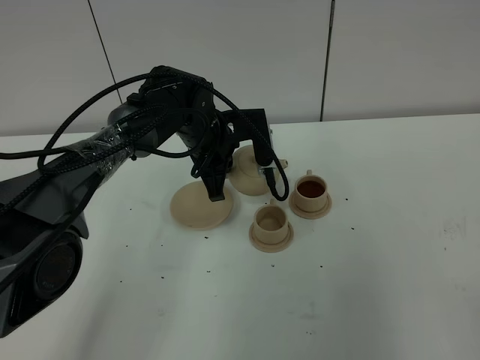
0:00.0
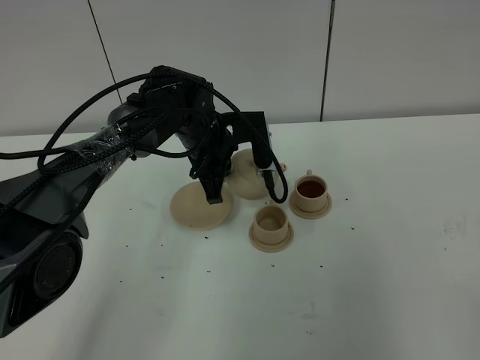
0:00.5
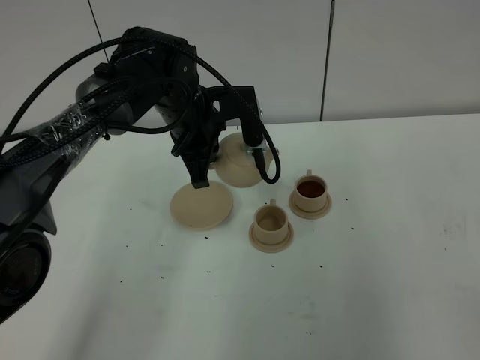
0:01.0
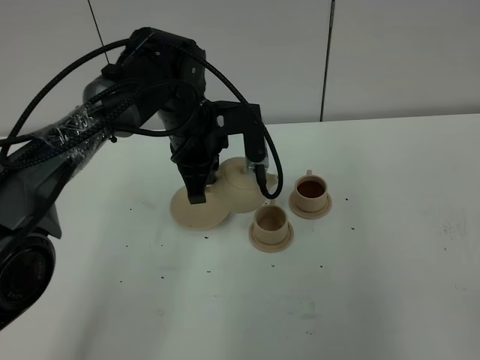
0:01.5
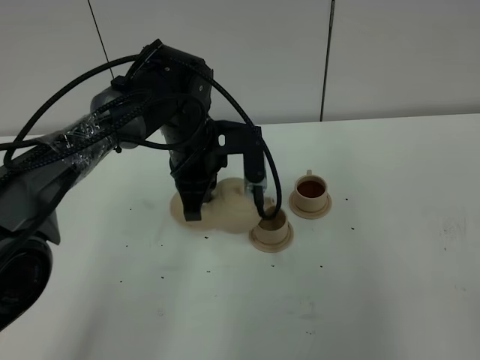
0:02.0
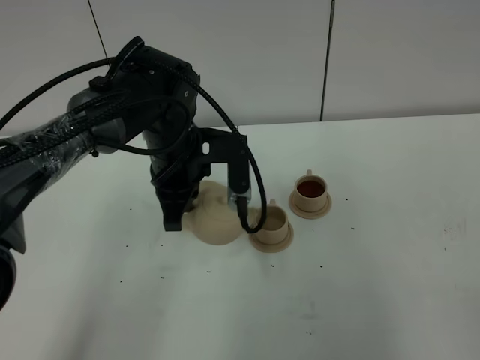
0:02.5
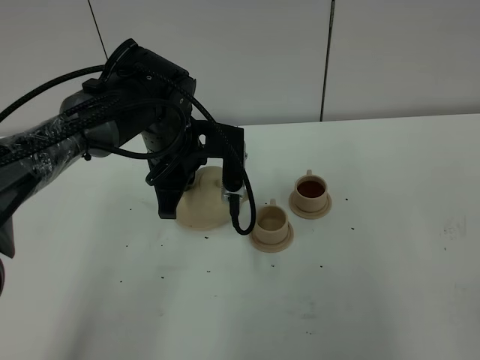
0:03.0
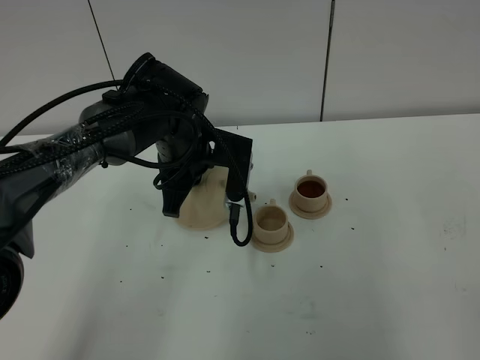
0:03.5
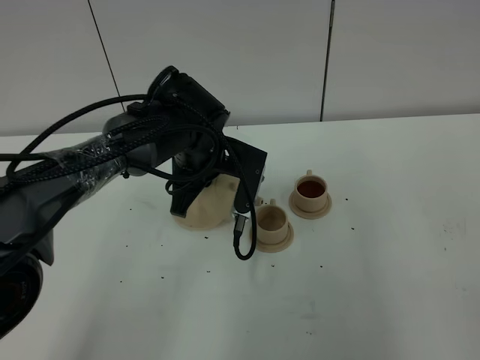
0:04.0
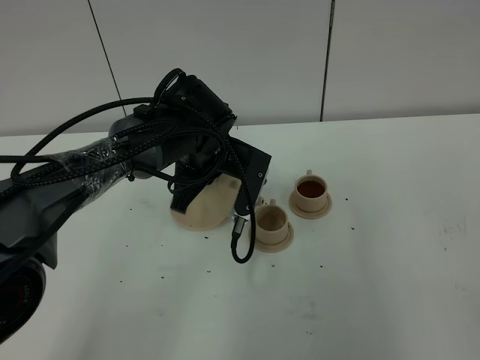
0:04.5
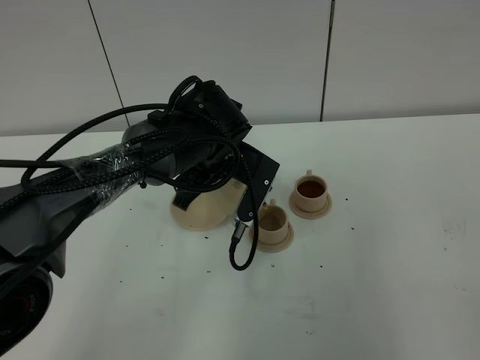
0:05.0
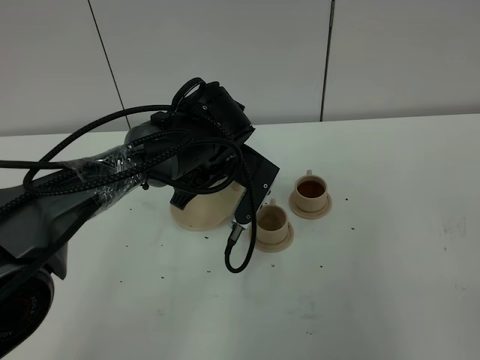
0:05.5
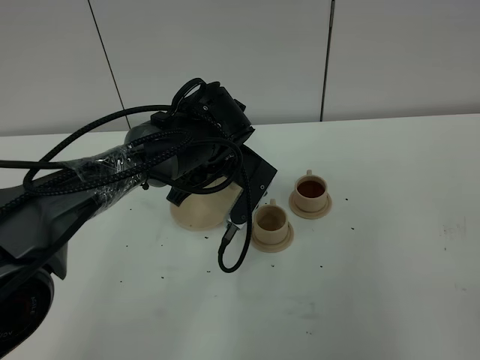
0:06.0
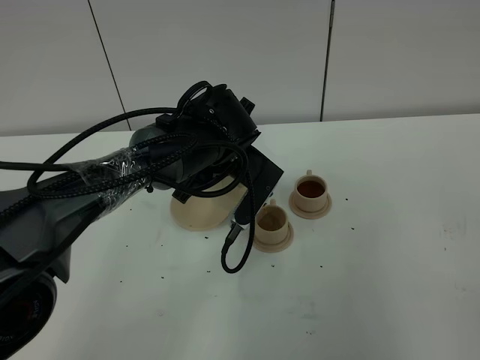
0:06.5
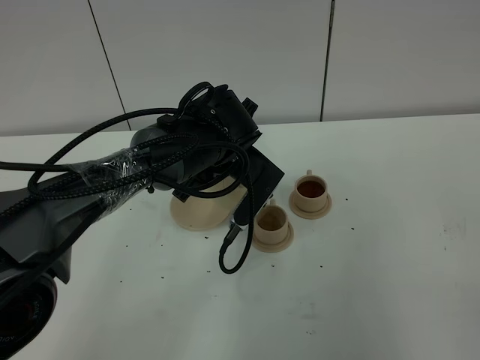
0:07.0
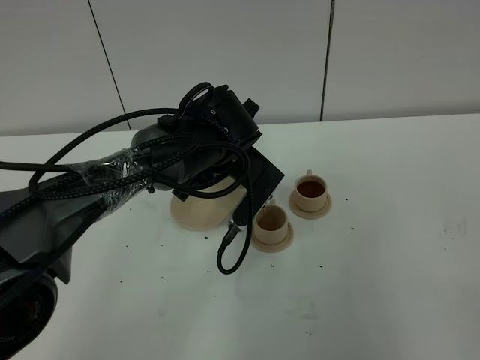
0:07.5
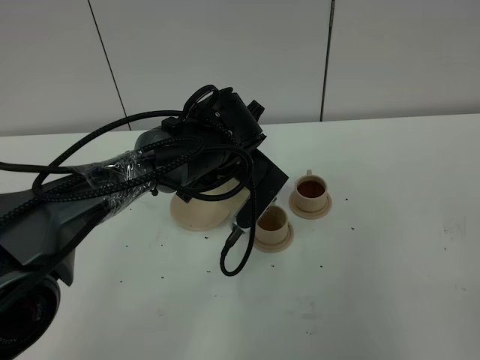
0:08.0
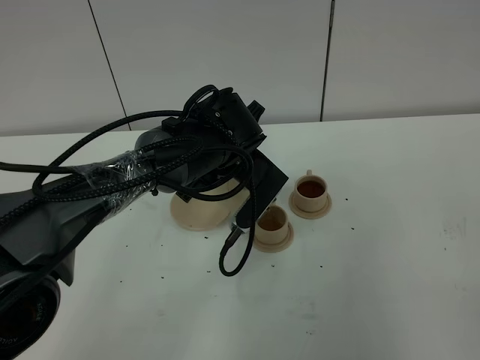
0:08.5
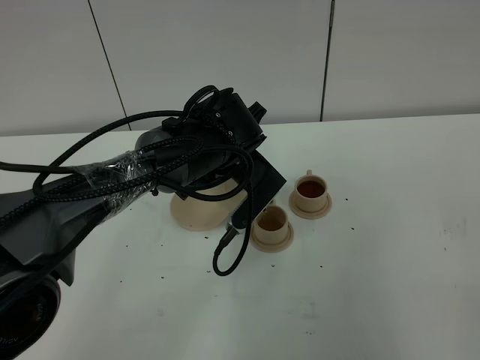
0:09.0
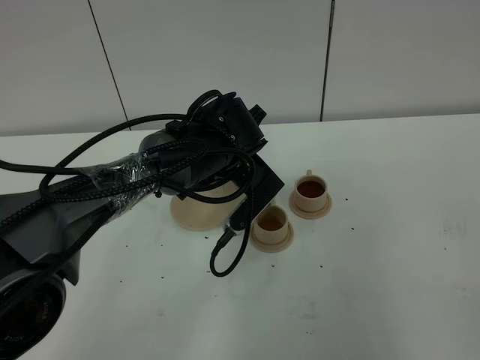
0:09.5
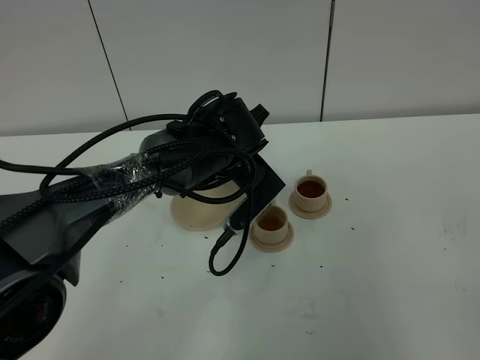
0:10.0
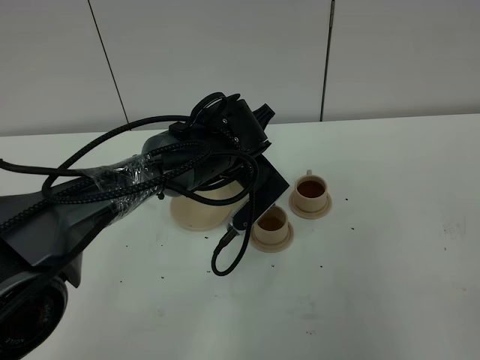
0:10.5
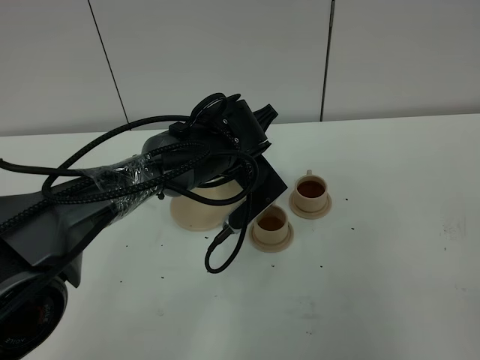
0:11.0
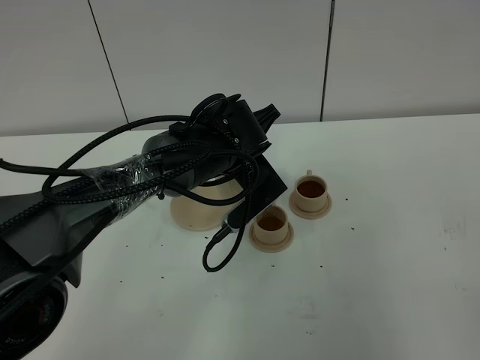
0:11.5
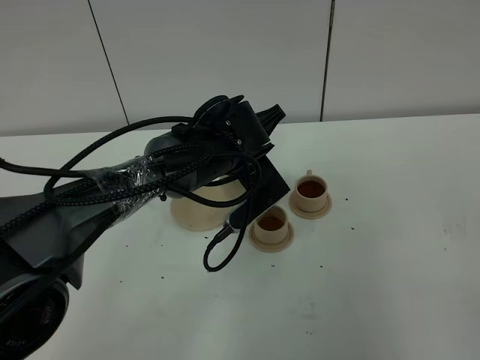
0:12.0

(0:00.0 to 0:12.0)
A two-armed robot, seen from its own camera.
Task of the whole recording: grasp the brown teapot and pour the tea into the two brown teacups one by one, put the brown teapot back in its original place.
0:00.0 - 0:02.0: The left gripper heads backward, covering roughly 5 cm.
0:04.0 - 0:06.0: The grippers make only small movements.
0:06.0 - 0:10.0: There are only small adjustments of the grippers.
0:10.0 - 0:12.0: The grippers move only a little.

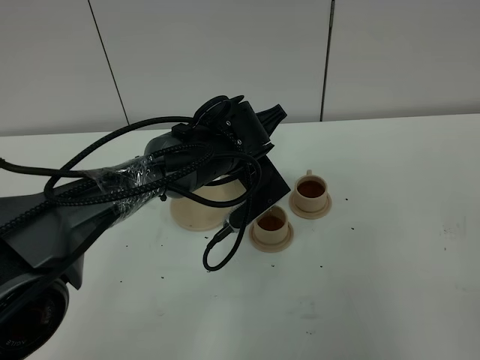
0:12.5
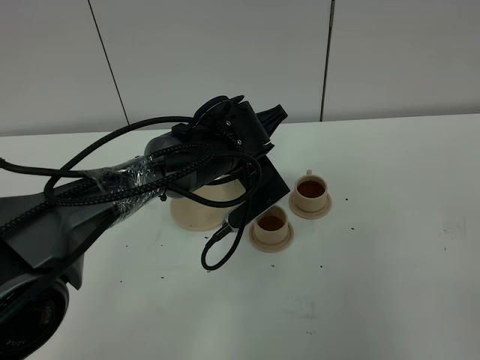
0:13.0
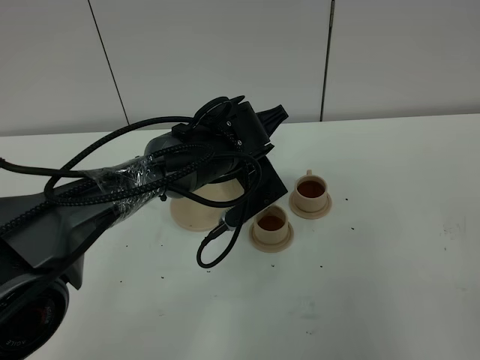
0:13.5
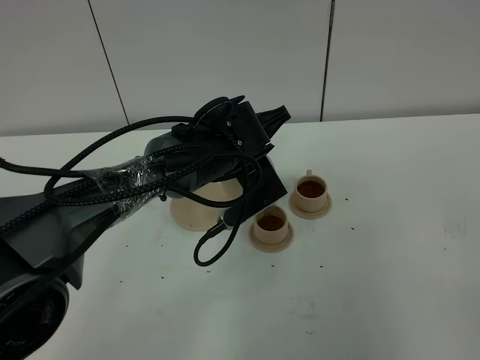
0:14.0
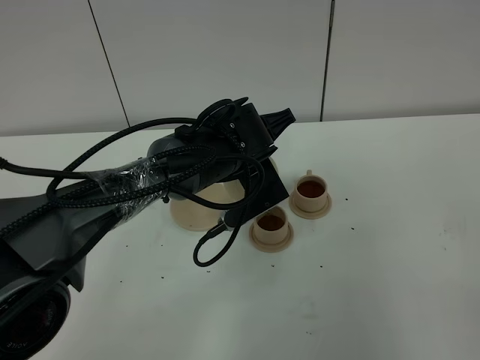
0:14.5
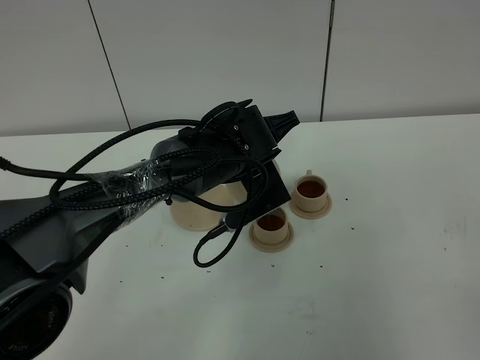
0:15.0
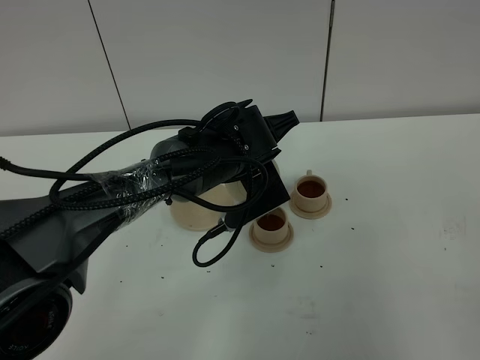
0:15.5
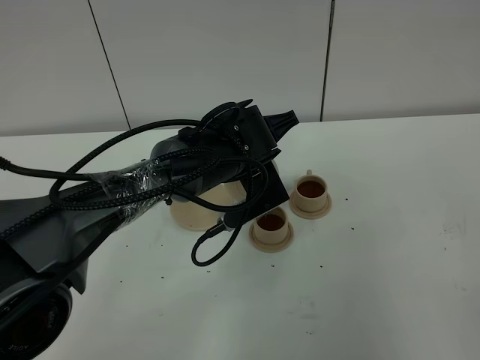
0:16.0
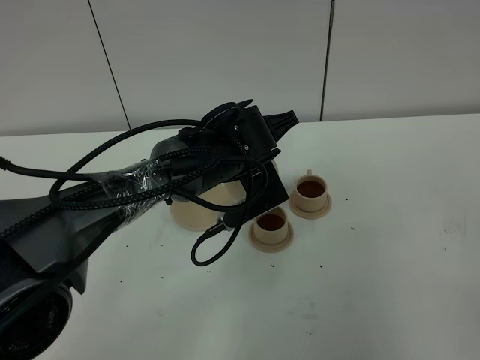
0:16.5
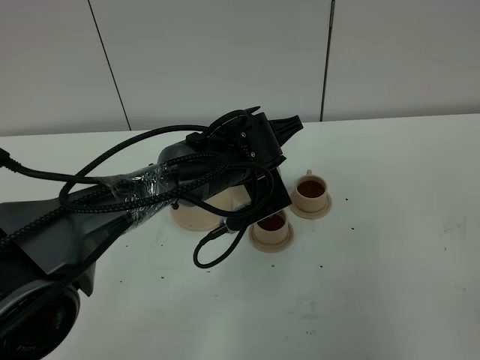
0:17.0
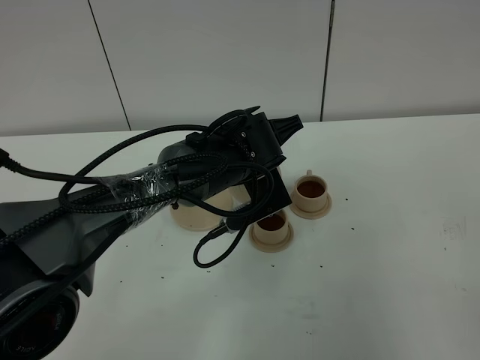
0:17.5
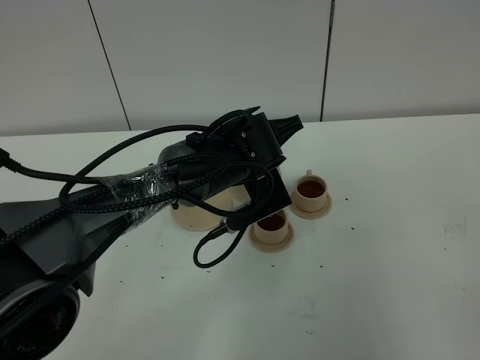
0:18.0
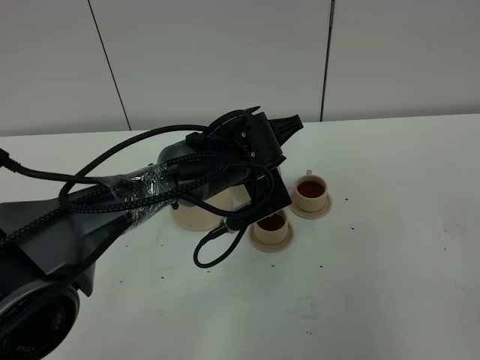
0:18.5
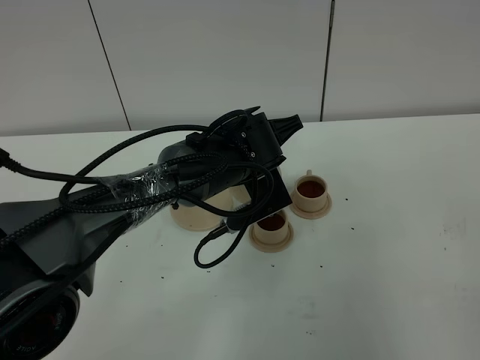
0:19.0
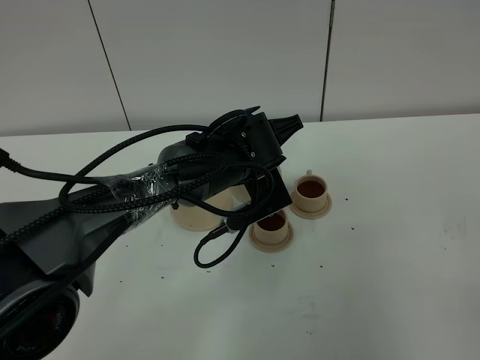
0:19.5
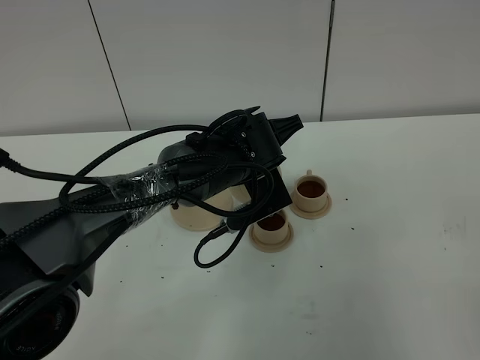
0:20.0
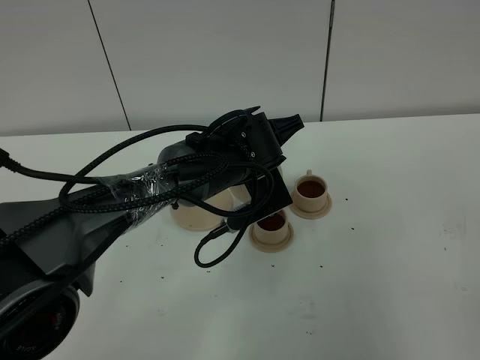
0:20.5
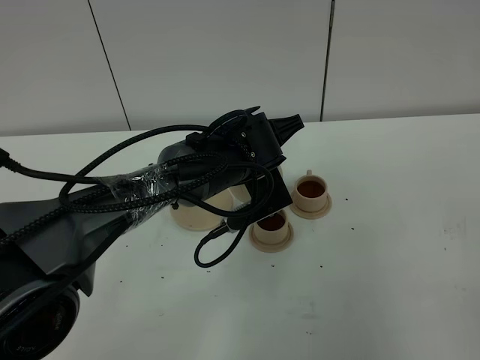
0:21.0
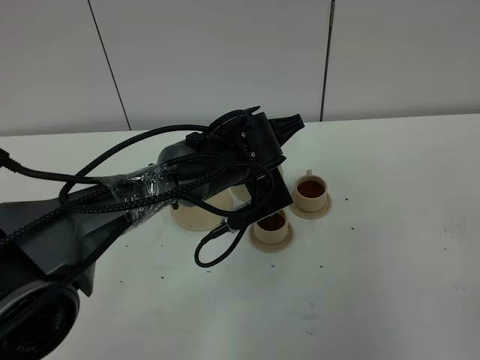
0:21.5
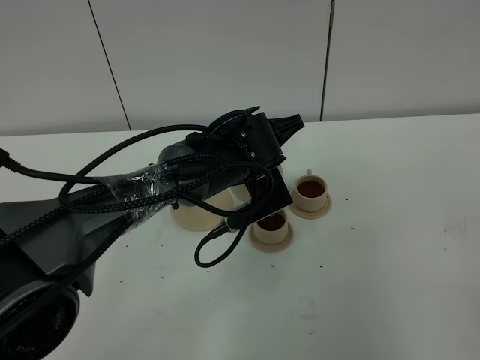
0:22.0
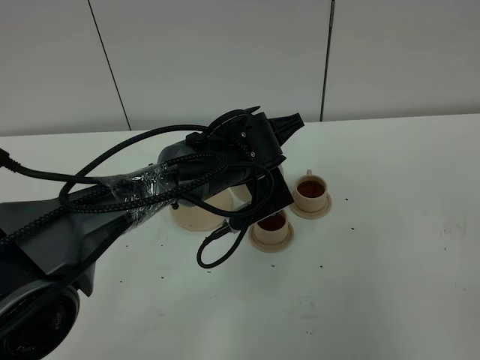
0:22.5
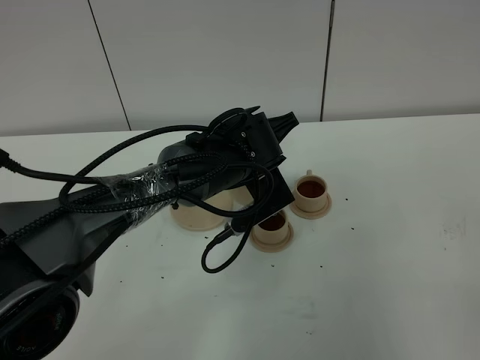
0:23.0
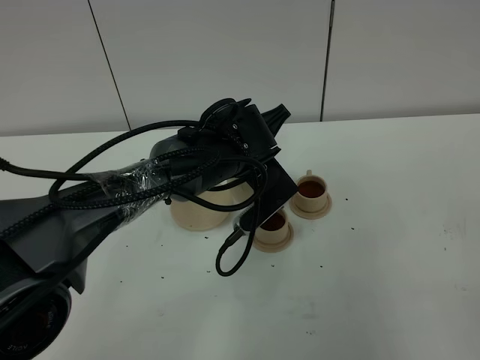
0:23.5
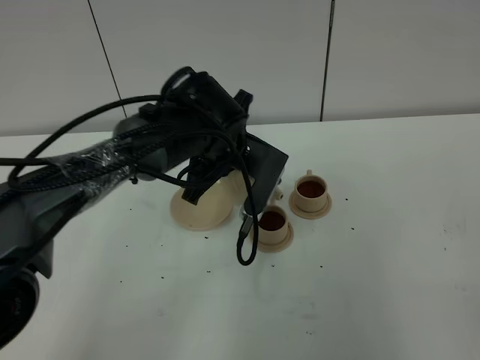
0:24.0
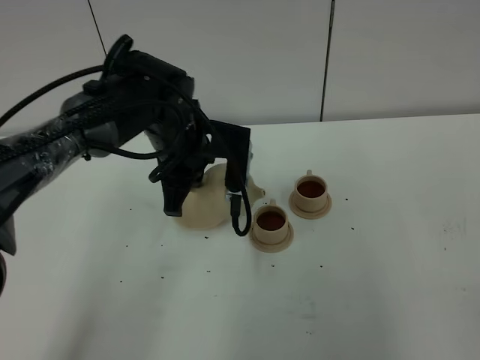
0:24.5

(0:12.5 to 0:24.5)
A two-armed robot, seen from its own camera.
Task of the whole recording: grasp the brown teapot and pour the tea into the two brown teacups one by one, put the brown teapot back in its original place.
Step, 0:12.5 - 0:23.5: Pour tea into the teacup with the left gripper.
0:12.5 - 0:14.5: There are only small adjustments of the grippers.
0:14.5 - 0:22.5: The two grippers keep their place.
0:22.5 - 0:24.5: The left gripper shifts some 10 cm to the left.

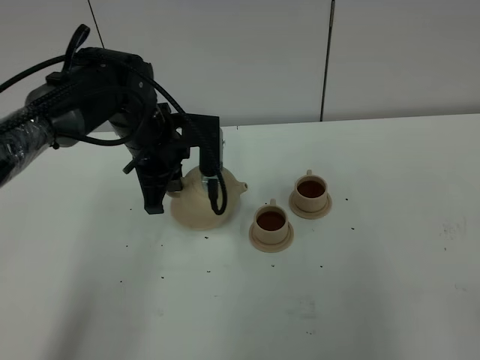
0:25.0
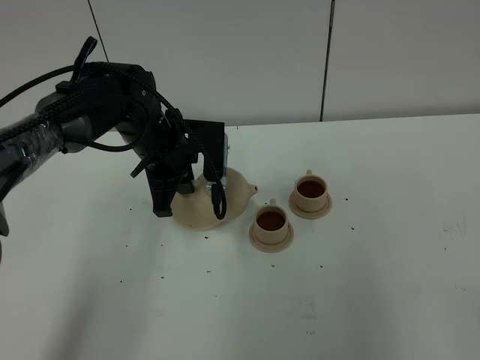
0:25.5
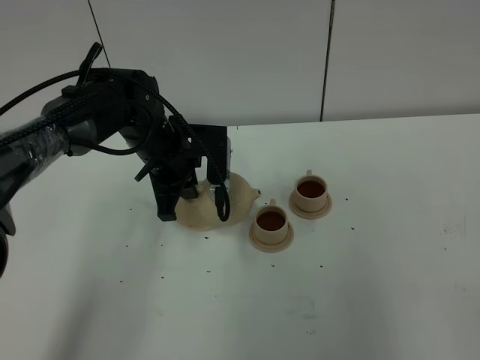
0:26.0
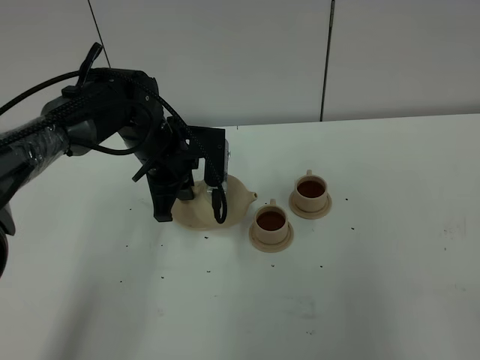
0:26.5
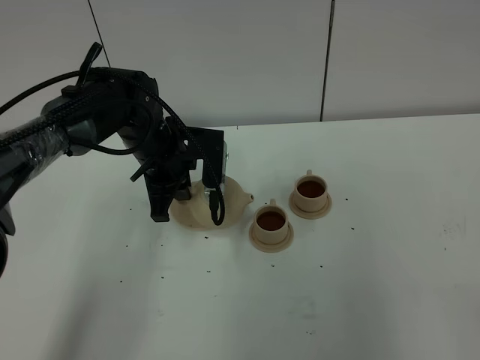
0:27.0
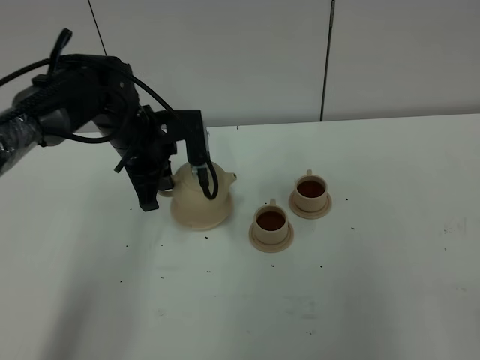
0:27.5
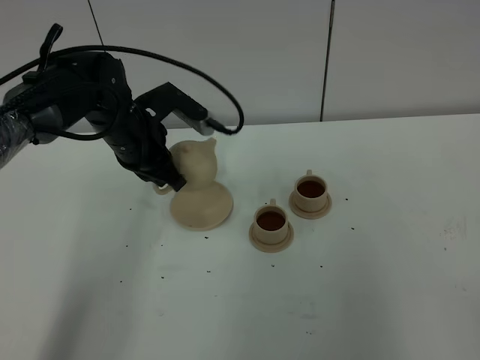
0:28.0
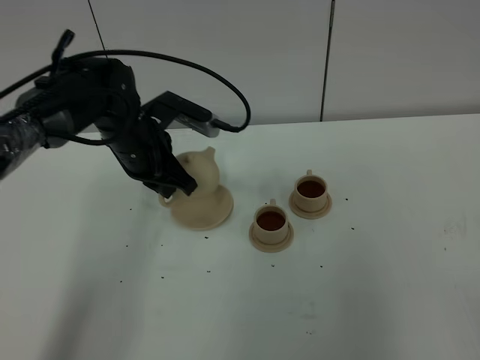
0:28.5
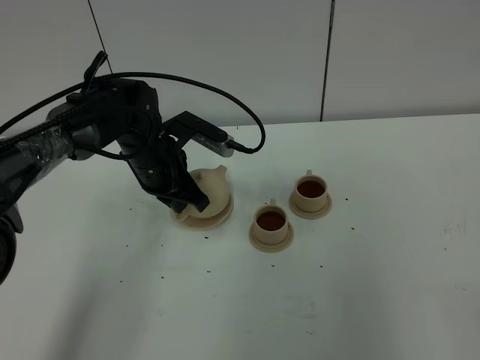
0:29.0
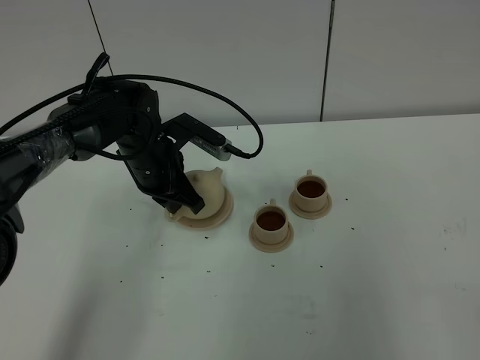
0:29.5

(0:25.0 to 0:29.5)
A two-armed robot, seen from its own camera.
Task of the whole recording: grasp the brown teapot and pour the tea into the two brown teacups one by one, put the brown teapot back in its original place.
0:25.0 - 0:27.0: The grippers make only small movements.
